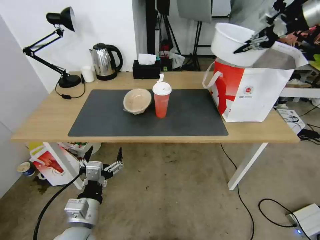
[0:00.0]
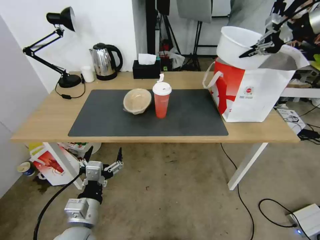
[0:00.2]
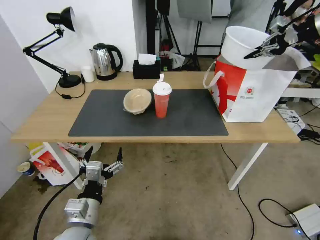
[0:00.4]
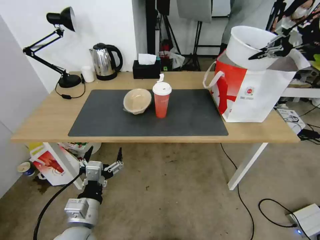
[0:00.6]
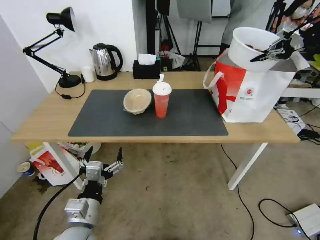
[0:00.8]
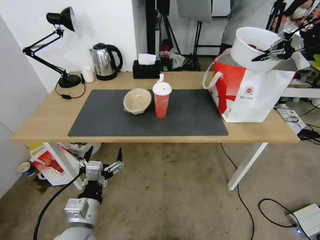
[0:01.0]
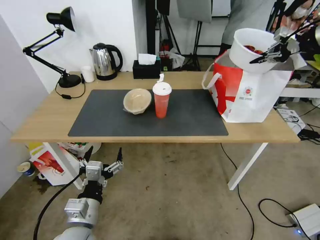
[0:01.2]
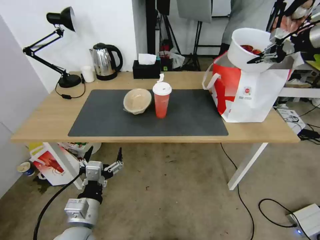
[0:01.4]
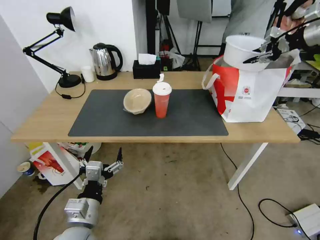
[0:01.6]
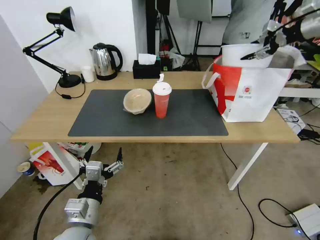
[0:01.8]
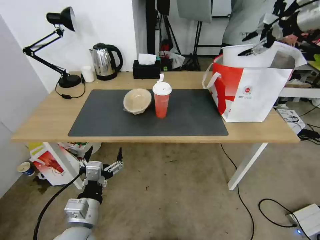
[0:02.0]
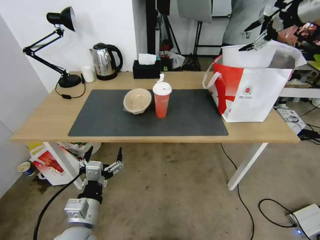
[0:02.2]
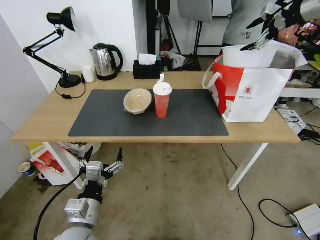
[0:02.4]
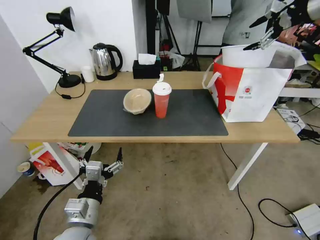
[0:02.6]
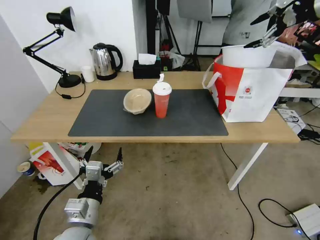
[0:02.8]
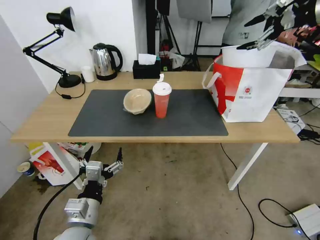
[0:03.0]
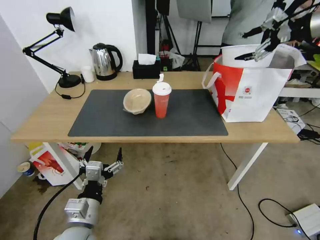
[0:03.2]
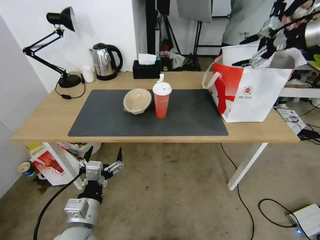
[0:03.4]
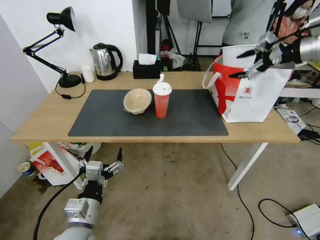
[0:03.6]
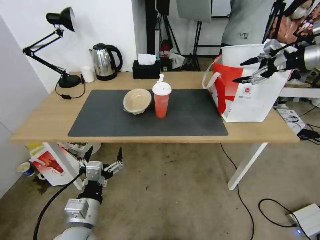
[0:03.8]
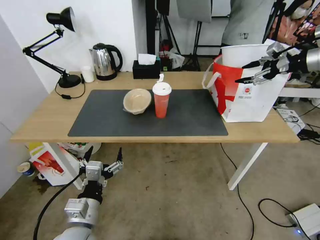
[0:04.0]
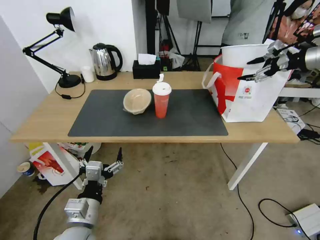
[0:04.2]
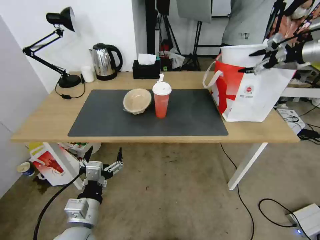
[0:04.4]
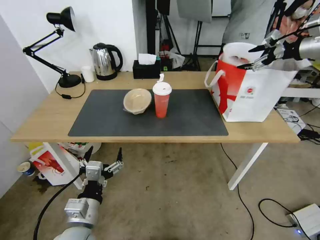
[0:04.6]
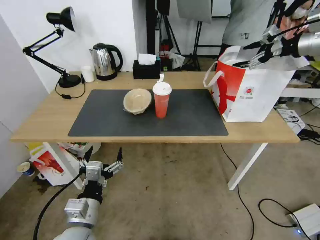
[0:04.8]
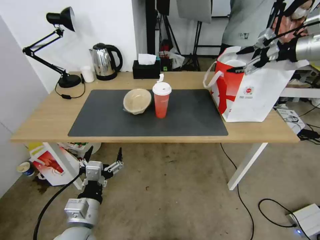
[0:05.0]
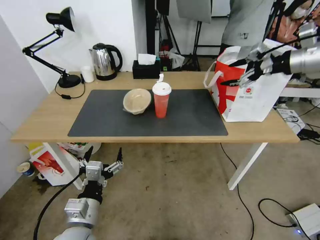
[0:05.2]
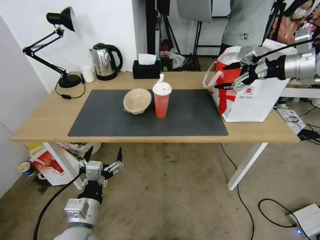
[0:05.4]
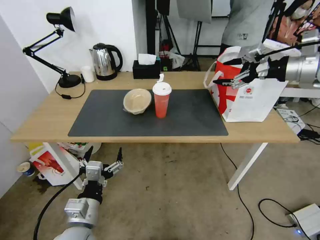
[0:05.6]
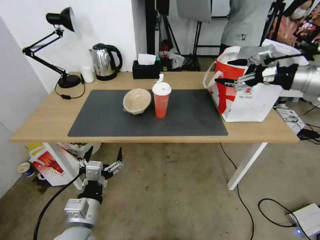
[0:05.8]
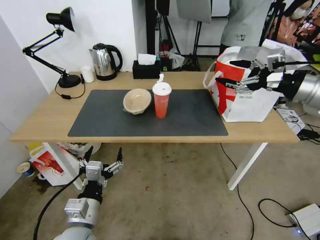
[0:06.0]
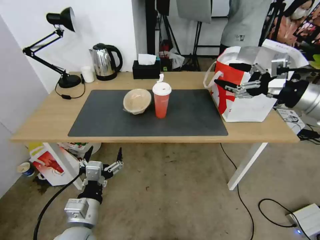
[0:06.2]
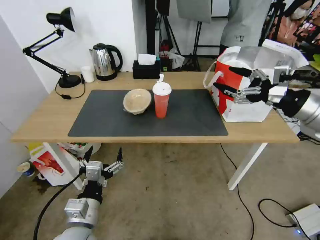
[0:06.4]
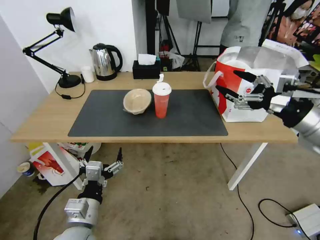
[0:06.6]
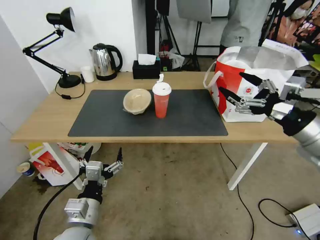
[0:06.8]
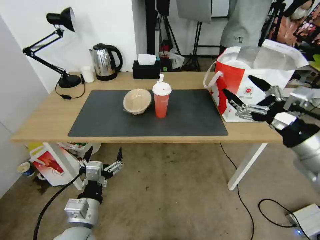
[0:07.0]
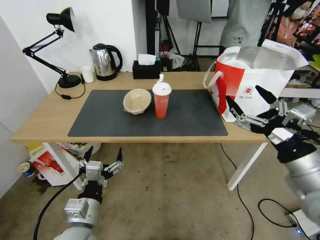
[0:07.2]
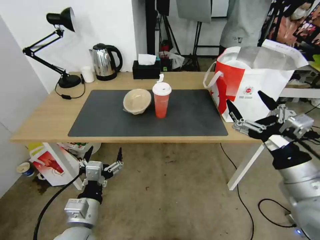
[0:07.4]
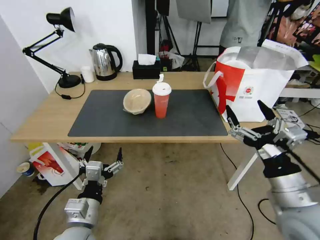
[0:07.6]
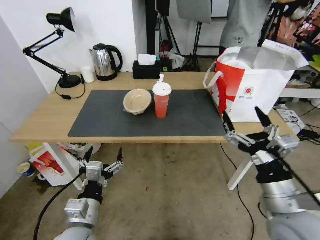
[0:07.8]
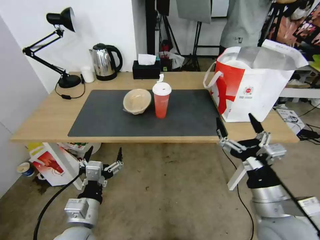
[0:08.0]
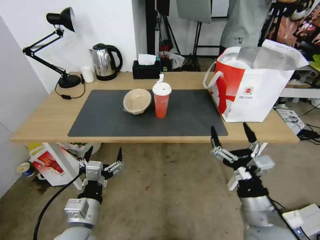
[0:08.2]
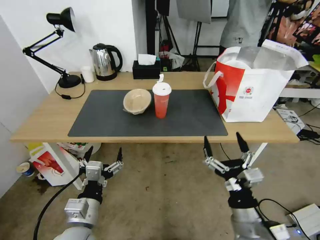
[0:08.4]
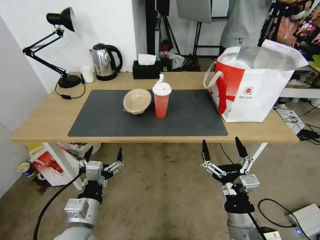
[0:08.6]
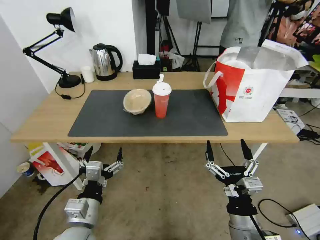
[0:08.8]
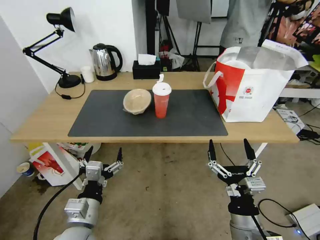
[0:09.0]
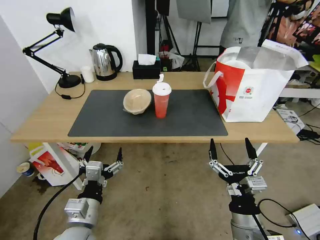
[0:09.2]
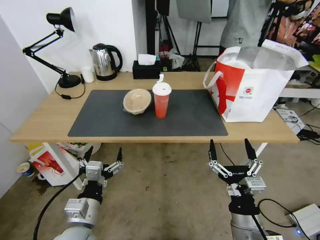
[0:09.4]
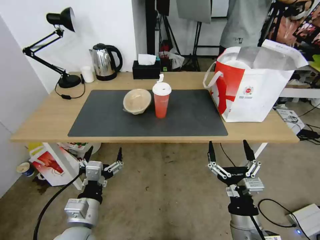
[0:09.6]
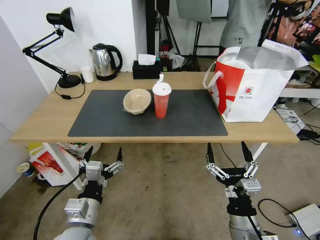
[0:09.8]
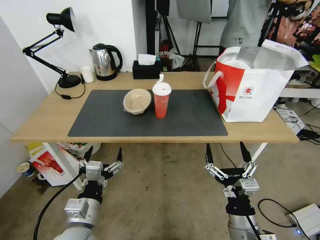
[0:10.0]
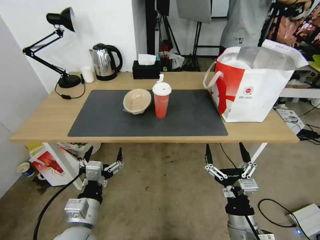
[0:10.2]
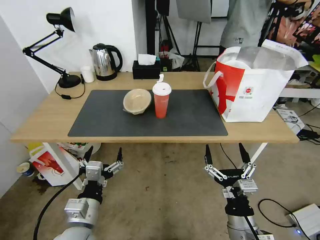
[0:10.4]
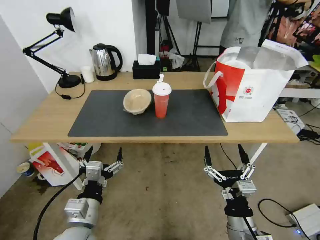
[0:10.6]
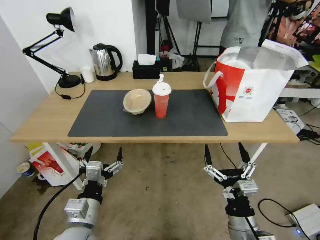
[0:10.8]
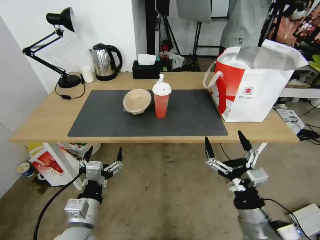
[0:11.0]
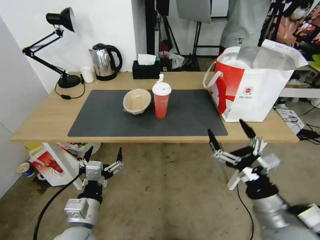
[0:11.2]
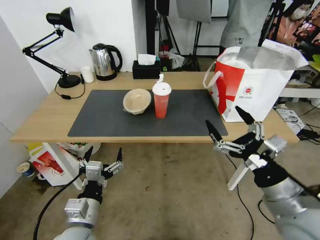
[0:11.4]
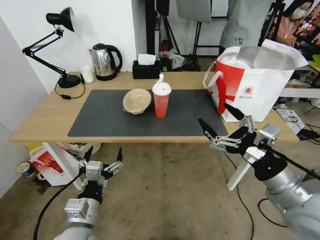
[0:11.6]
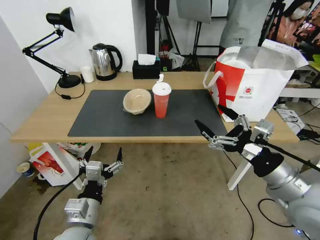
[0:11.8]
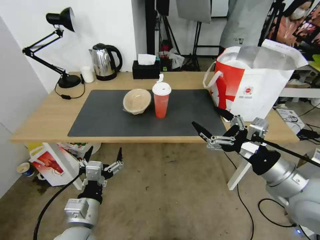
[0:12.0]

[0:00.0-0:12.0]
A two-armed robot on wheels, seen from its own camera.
Task of the whole recording: Pick up the trash from the table and place it into the takeout bag.
0:00.0 to 0:01.6: The right gripper heads downward, covering approximately 5 cm.
0:01.6 to 0:03.0: The right gripper travels upward by approximately 5 cm, and opens up.
0:03.0 to 0:04.4: The right gripper shifts about 10 cm downward and to the right.
0:04.4 to 0:06.0: The right gripper goes roughly 20 cm backward, to the left and downward.
0:06.0 to 0:07.6: The right gripper travels backward, downward and to the left by approximately 30 cm.
0:07.6 to 0:09.0: The right gripper moves downward and to the left, roughly 15 cm.
0:09.0 to 0:10.4: The grippers stay close to where they were, moving slightly.
0:10.4 to 0:12.0: The right gripper travels upward, to the right and forward by some 20 cm.

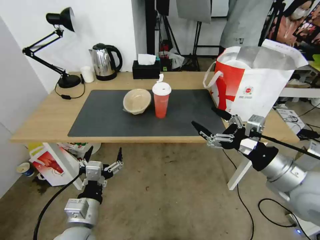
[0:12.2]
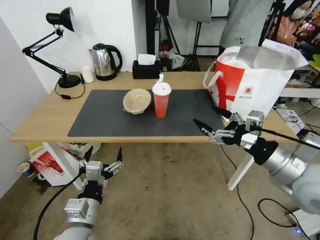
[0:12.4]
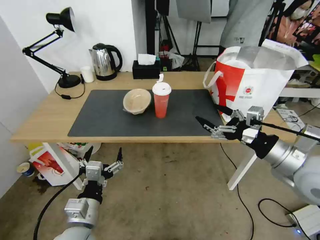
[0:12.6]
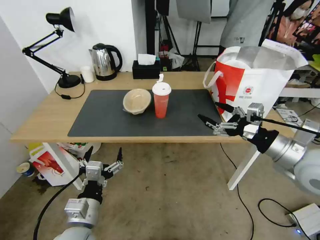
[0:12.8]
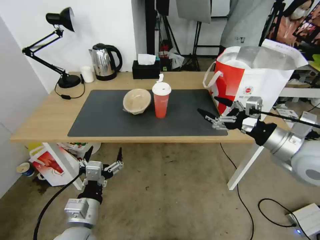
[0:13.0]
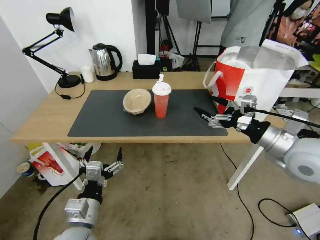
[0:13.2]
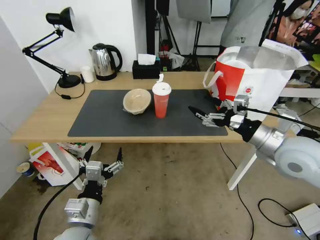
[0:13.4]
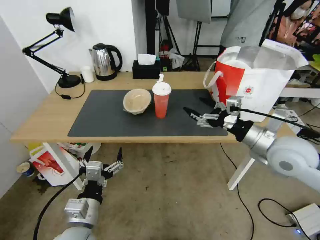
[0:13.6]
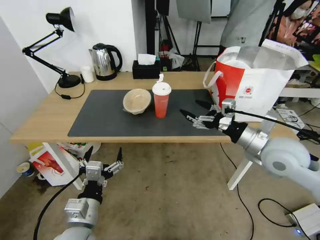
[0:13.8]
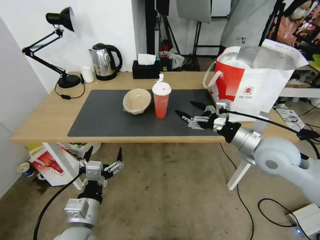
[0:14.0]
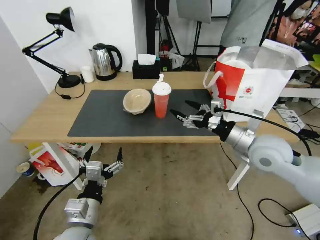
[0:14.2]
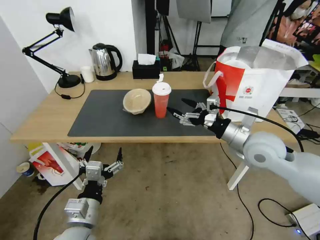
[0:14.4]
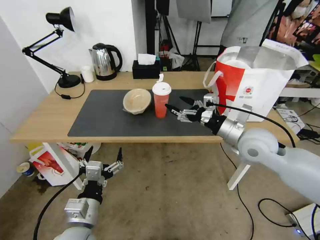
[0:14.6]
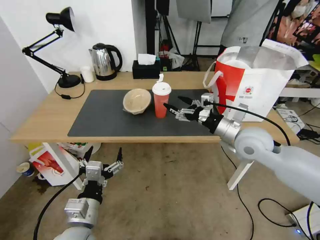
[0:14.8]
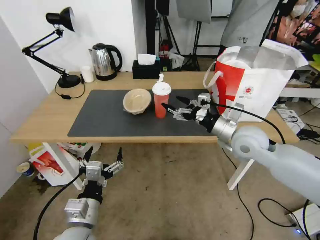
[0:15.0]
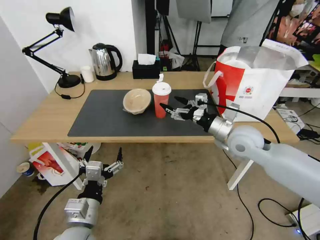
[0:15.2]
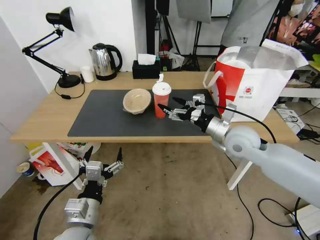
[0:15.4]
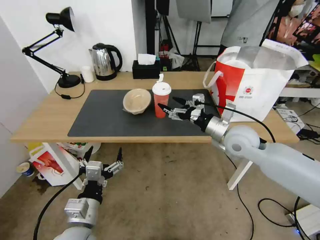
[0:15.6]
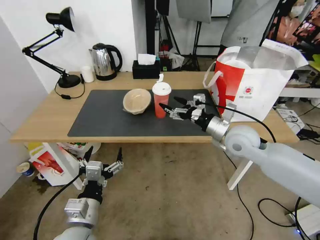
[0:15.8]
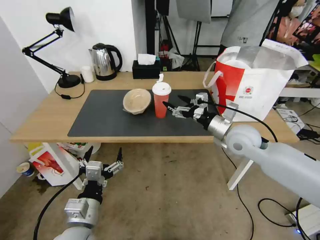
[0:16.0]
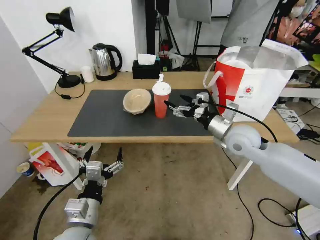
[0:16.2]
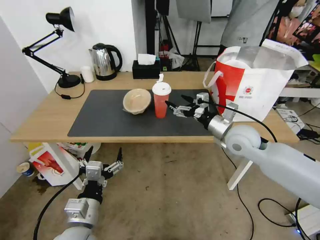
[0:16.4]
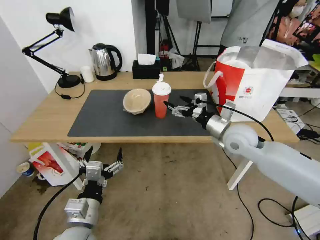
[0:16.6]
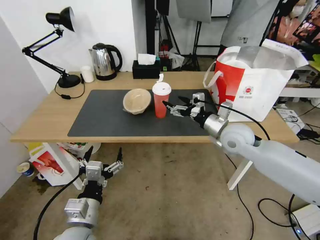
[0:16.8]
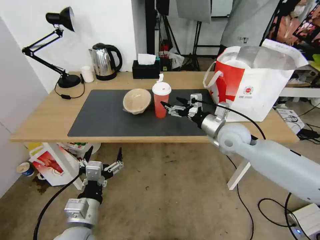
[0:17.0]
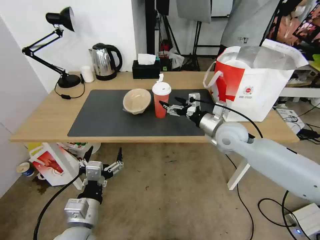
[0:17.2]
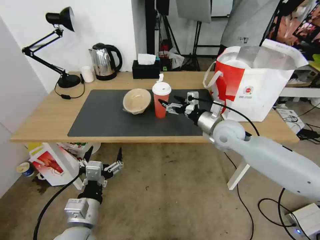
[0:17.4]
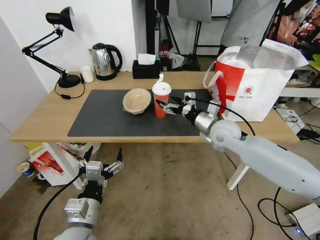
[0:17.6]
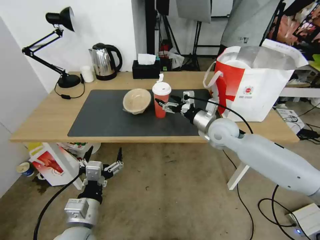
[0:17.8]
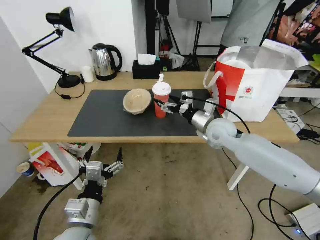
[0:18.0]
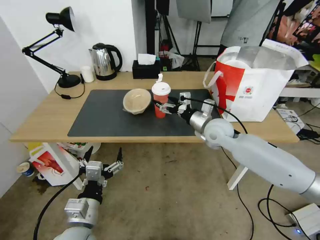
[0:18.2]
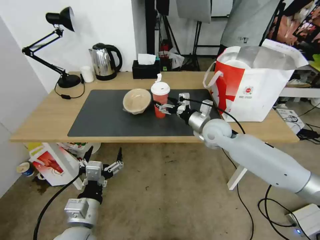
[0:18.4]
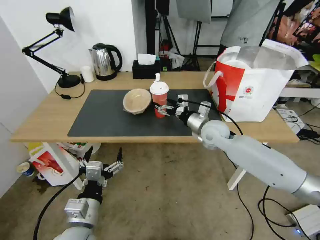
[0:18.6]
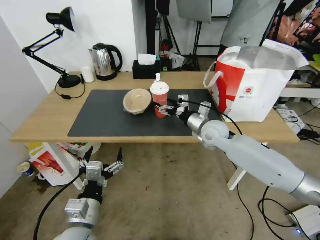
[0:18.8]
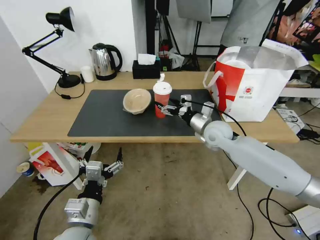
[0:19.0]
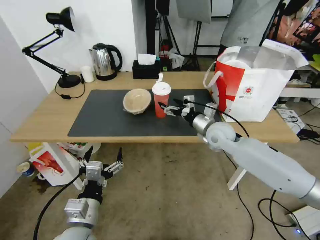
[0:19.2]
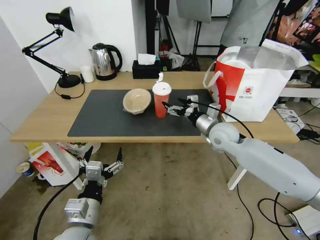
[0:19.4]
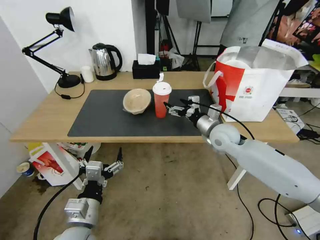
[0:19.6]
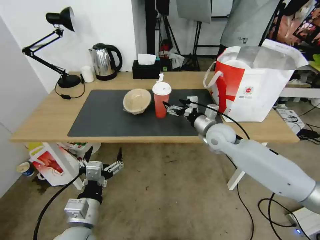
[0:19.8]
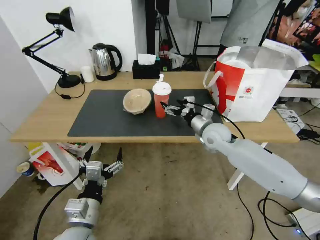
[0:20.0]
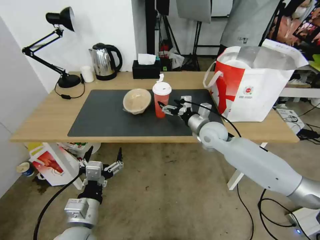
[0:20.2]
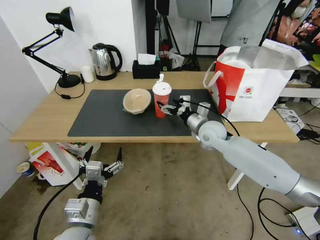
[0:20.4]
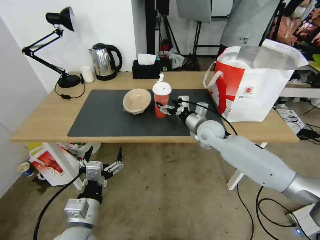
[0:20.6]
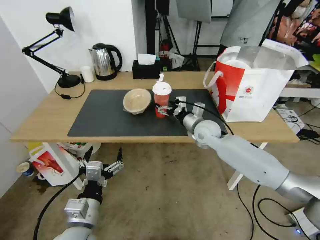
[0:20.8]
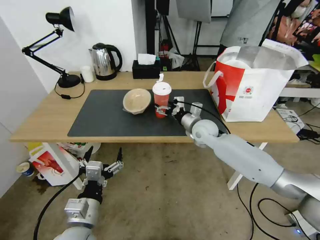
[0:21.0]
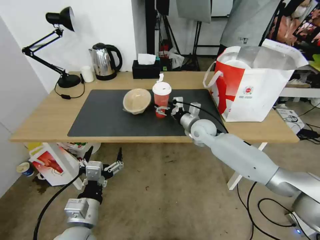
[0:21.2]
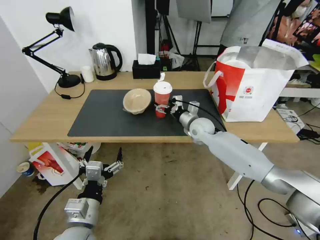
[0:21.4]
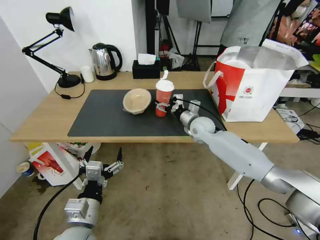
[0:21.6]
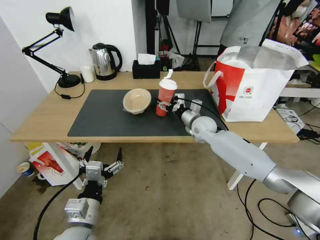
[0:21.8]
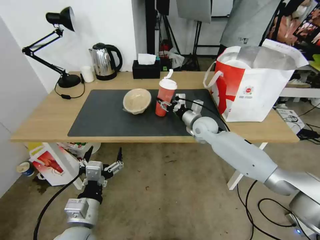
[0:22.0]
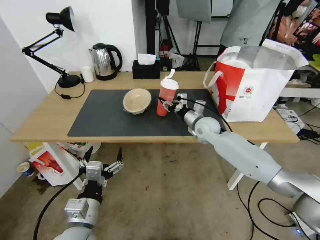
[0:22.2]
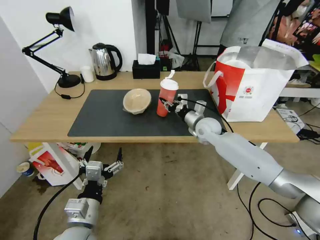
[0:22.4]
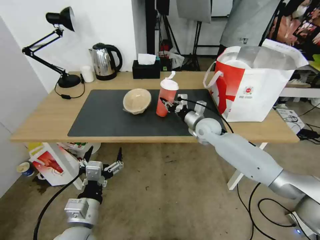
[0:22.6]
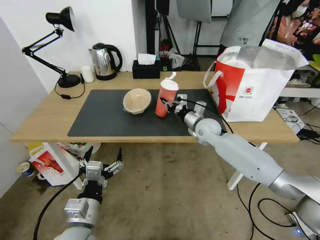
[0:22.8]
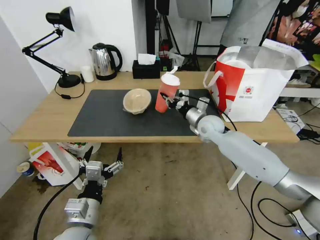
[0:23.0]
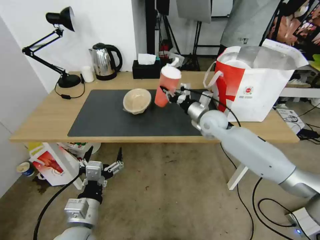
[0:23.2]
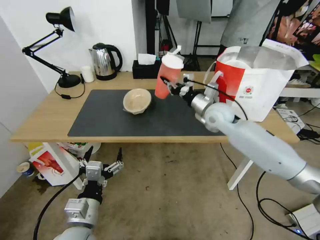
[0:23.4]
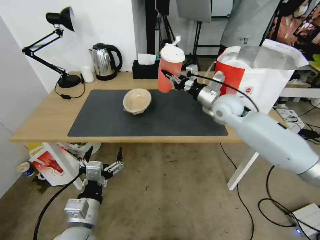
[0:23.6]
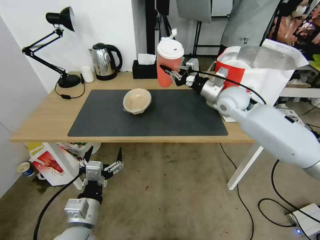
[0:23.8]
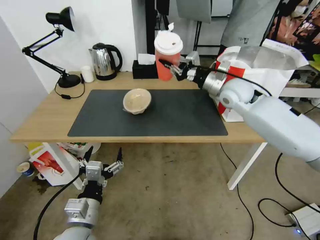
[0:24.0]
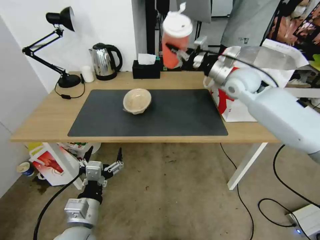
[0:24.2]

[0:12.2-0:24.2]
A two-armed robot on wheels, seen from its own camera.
Task of the whole recording: Pick up the trash from the table and place it into the takeout bag.
0:12.2 to 0:13.8: The right gripper moves forward, some 10 cm.
0:13.8 to 0:15.2: The right gripper goes about 10 cm forward and to the left.
0:15.2 to 0:16.6: The grippers move only a little.
0:16.6 to 0:18.2: The right gripper is displaced forward by roughly 5 cm.
0:18.2 to 0:19.8: The grippers move only a little.
0:19.8 to 0:21.2: The right gripper is displaced forward by some 5 cm.
0:21.2 to 0:22.6: The right gripper closes.
0:22.6 to 0:24.2: The right gripper goes roughly 20 cm upward.
